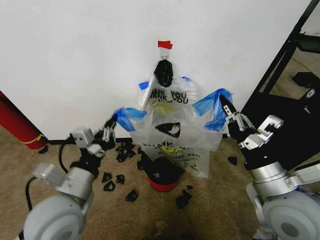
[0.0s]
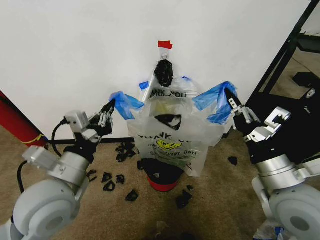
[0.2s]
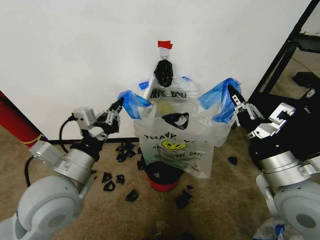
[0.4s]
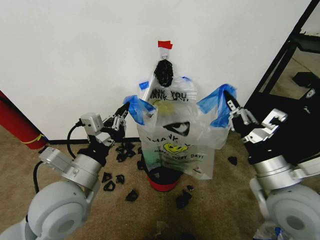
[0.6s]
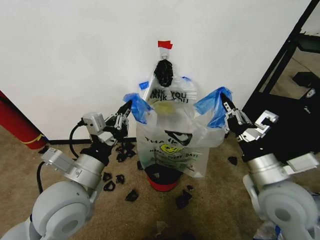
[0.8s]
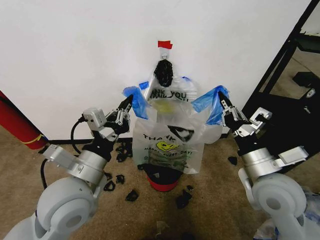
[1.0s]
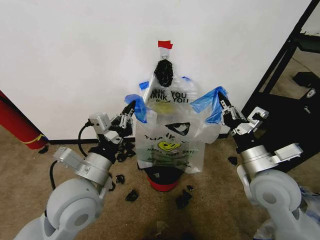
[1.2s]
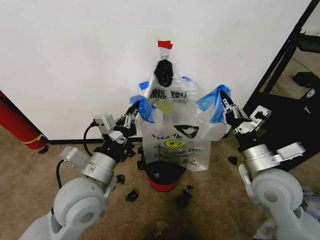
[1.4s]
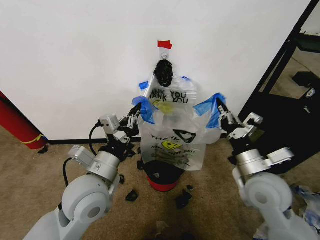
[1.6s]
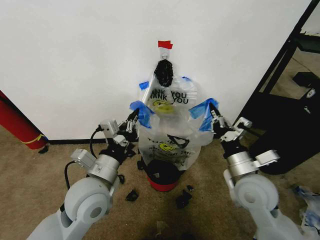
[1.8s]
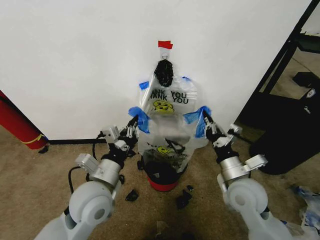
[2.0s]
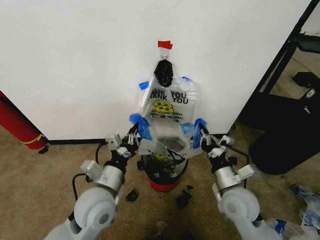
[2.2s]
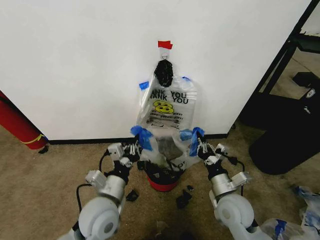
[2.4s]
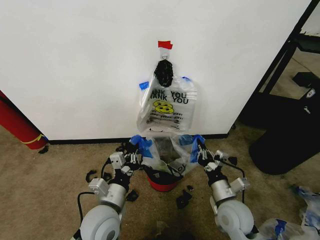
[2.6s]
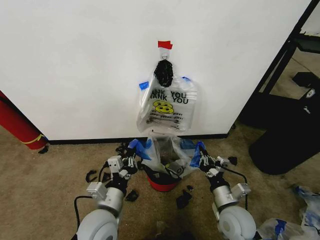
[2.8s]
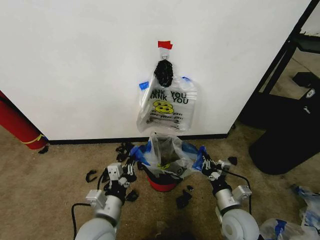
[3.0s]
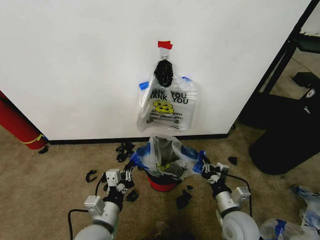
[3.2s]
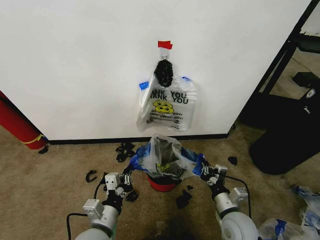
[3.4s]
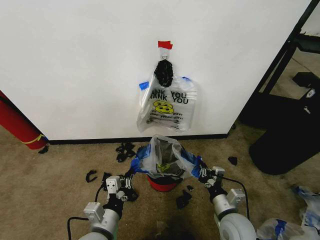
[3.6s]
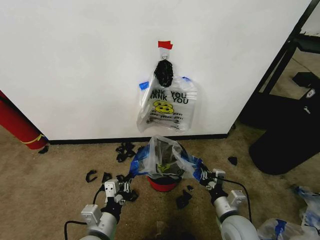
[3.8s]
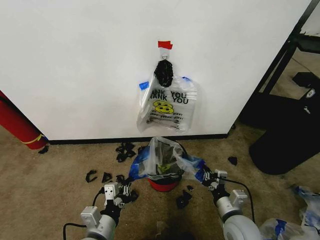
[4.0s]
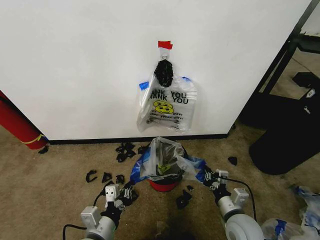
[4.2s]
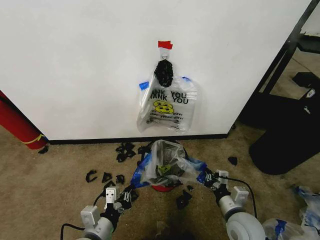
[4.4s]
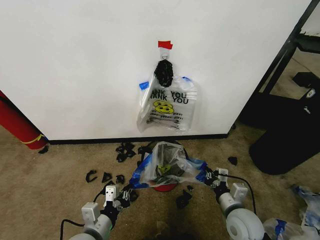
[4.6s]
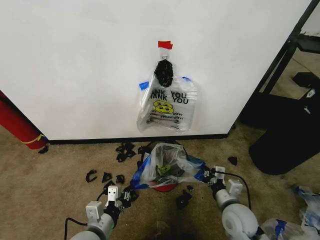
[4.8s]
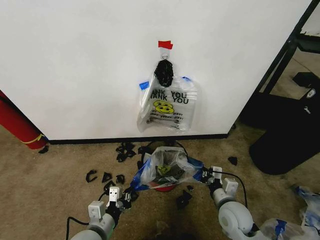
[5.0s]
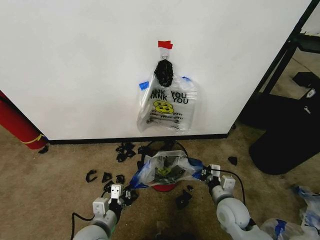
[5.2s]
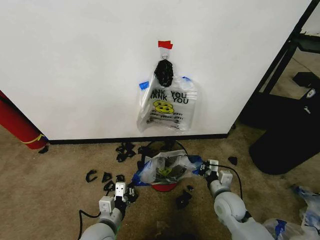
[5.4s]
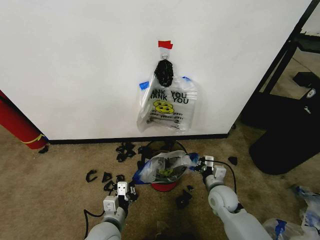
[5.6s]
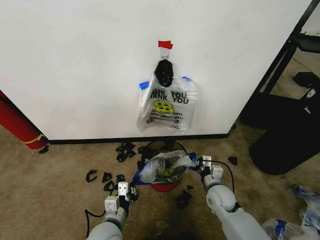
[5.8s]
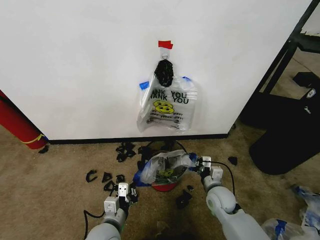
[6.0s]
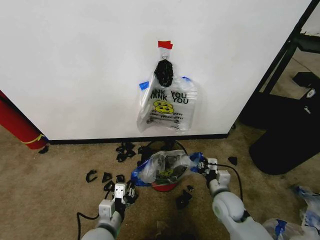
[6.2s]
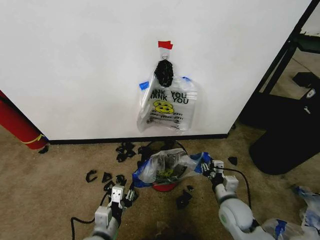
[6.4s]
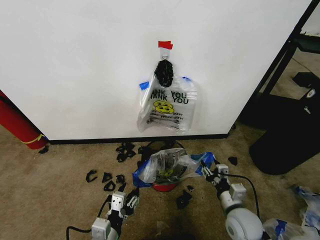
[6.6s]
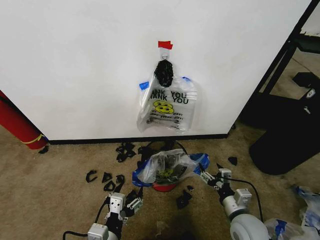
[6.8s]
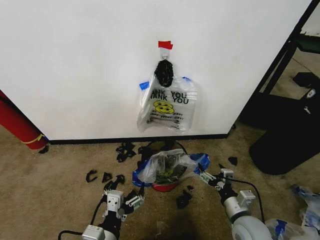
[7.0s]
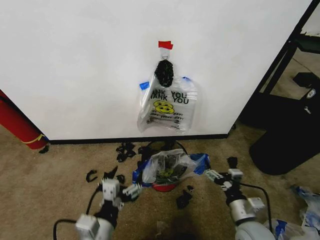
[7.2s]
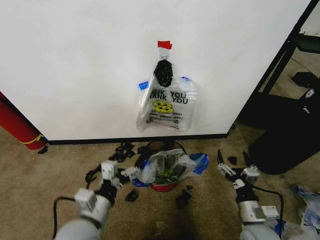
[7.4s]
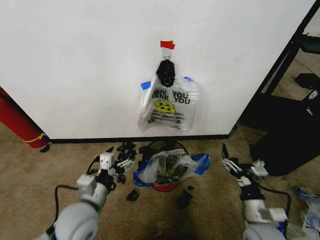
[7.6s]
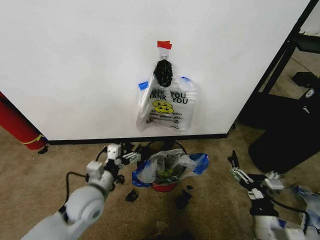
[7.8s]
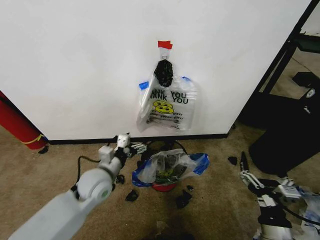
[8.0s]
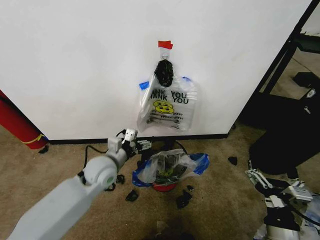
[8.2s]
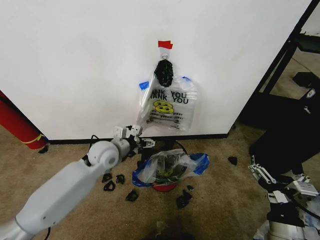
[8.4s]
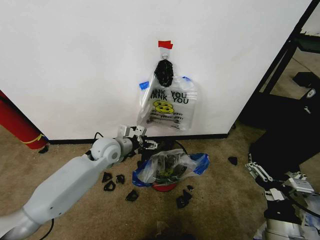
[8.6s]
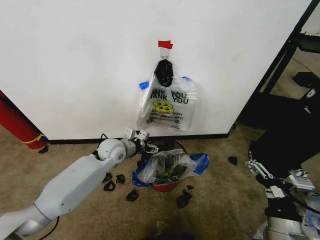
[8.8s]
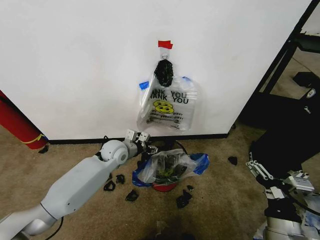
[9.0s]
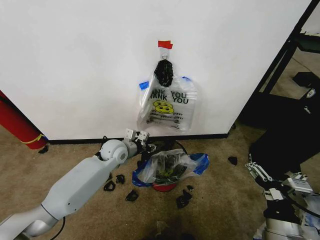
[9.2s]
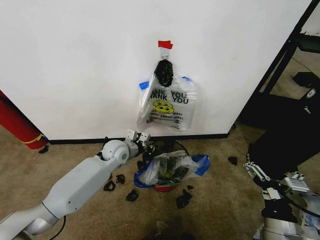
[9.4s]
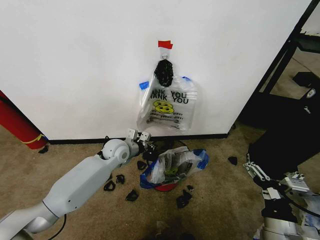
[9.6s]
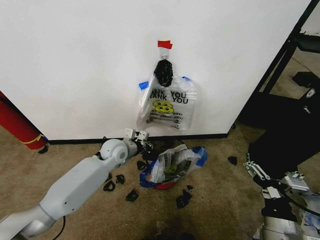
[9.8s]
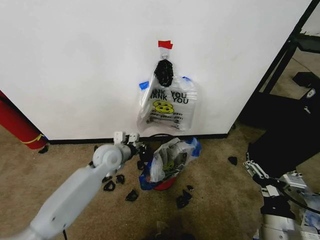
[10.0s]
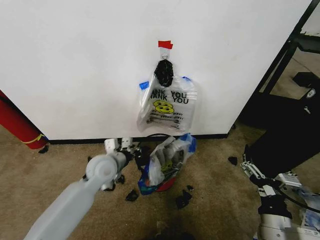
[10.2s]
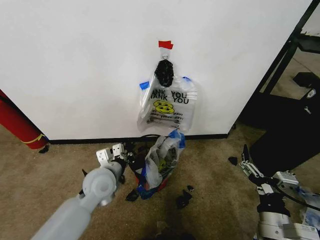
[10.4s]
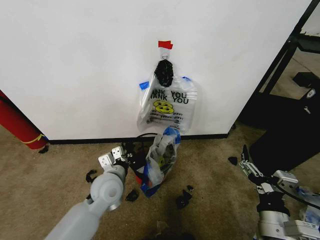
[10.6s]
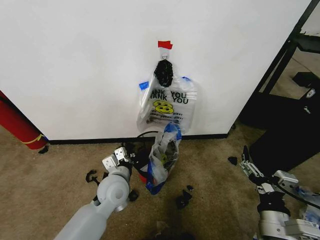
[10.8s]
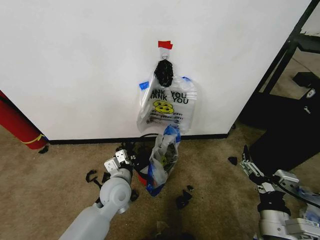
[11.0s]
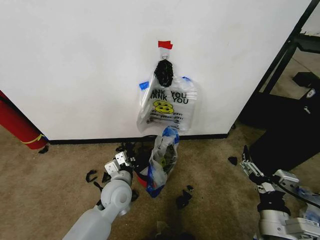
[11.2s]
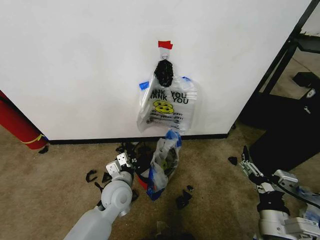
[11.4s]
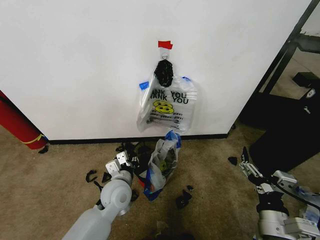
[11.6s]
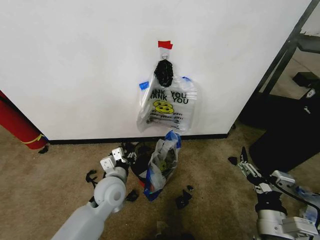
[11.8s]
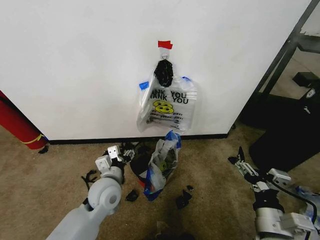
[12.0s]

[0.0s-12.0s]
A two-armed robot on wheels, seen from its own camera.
Task of the whole recording: Pick up the garbage bag from the wall and place it over the trash bin.
0.0s to 1.6s: The right gripper is displaced forward and downward by roughly 10 cm, while the left gripper changes place by roughly 5 cm.
1.6s to 3.0s: The right gripper shifts about 15 cm downward, while the left gripper heads downward and backward, covering approximately 15 cm.
3.0s to 4.4s: The left gripper ends up some 5 cm from where it was.
4.4s to 6.0s: The left gripper moves downward, approximately 5 cm. The right gripper travels forward by approximately 10 cm.
6.0s to 7.6s: The left gripper heads upward, covering roughly 10 cm, and opens. Meanwhile the right gripper heads backward, to the right and upward, covering approximately 15 cm, and opens up.
7.6s to 9.0s: The right gripper goes about 10 cm upward and backward. Meanwhile the left gripper moves forward, some 25 cm, and closes its fingers.
9.0s to 10.4s: The left gripper is displaced backward by about 15 cm, and closes.
10.4s to 12.0s: The left gripper opens its fingers.

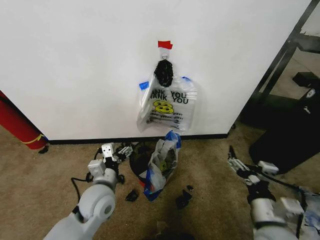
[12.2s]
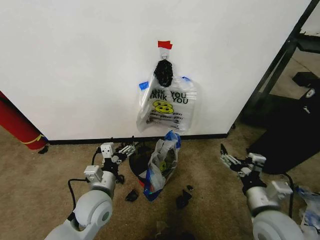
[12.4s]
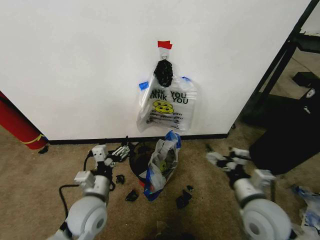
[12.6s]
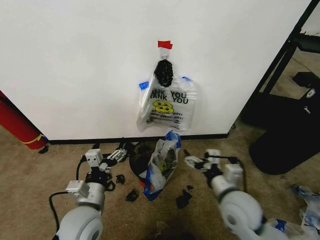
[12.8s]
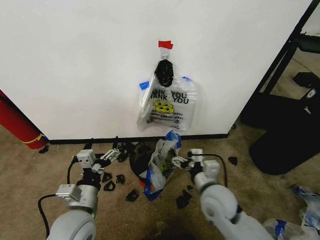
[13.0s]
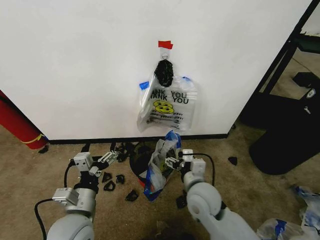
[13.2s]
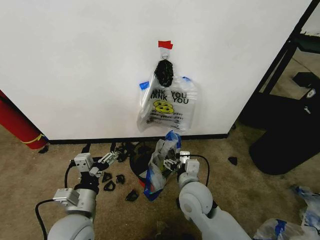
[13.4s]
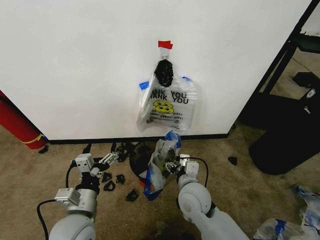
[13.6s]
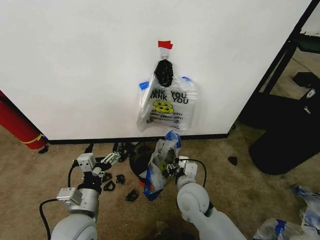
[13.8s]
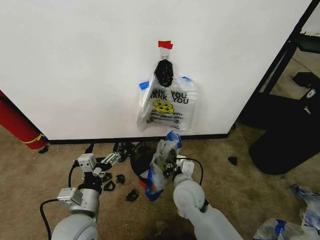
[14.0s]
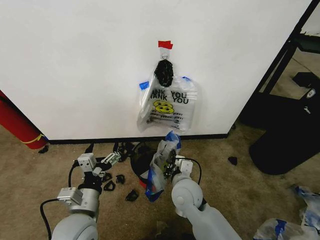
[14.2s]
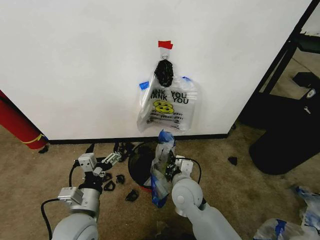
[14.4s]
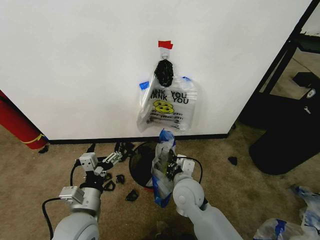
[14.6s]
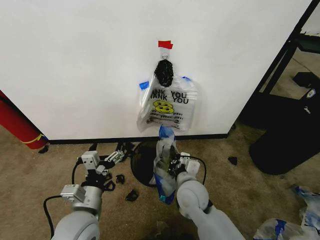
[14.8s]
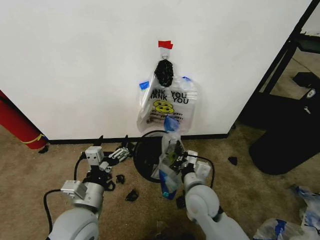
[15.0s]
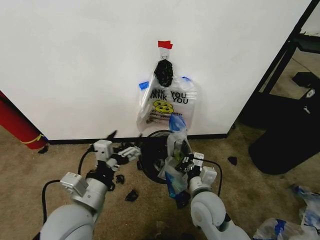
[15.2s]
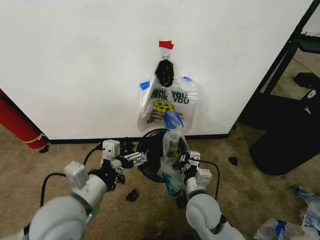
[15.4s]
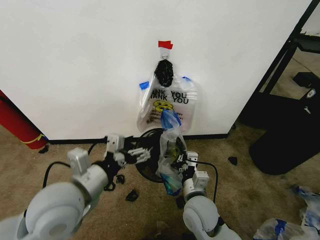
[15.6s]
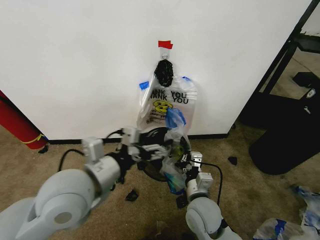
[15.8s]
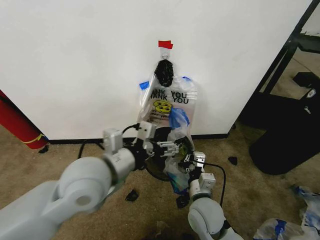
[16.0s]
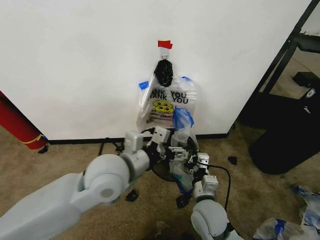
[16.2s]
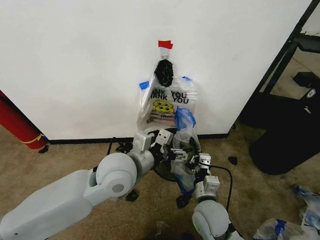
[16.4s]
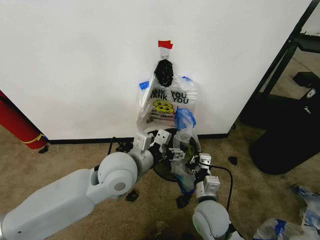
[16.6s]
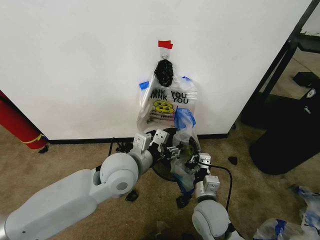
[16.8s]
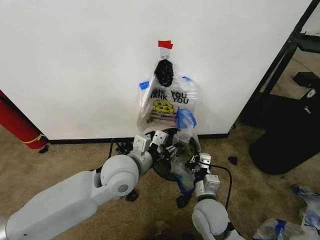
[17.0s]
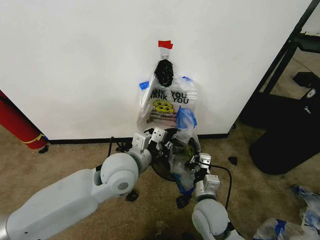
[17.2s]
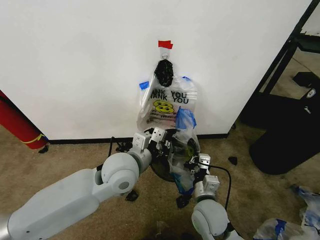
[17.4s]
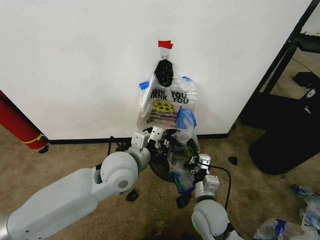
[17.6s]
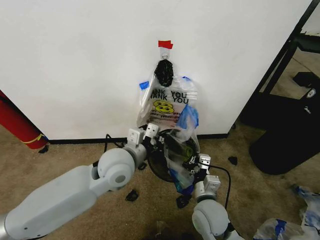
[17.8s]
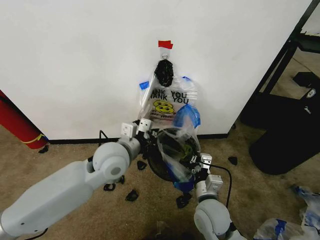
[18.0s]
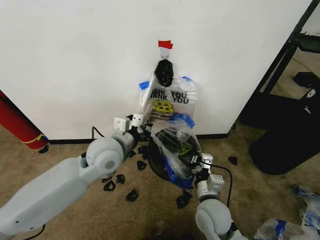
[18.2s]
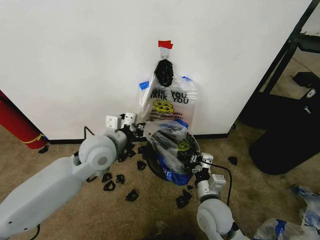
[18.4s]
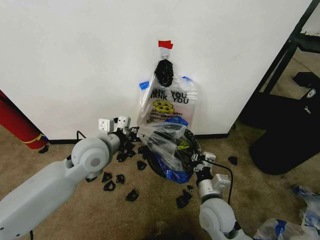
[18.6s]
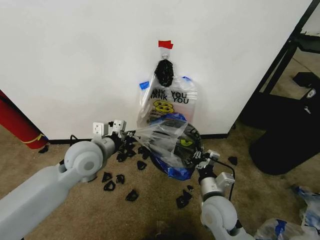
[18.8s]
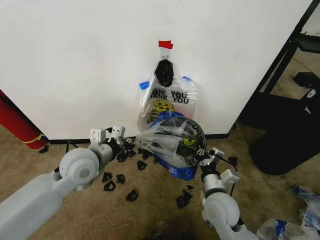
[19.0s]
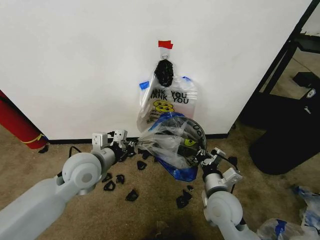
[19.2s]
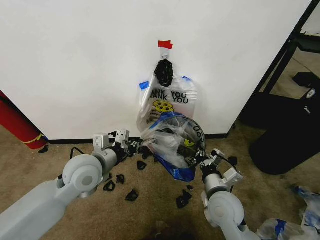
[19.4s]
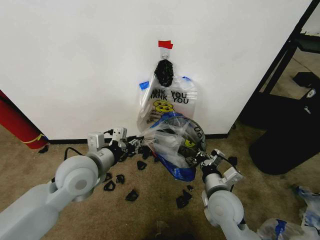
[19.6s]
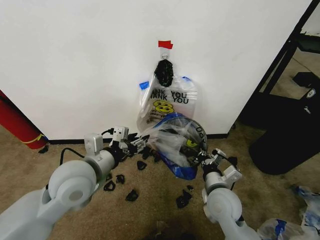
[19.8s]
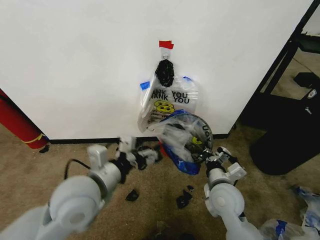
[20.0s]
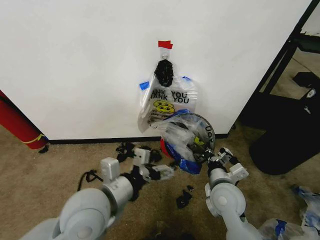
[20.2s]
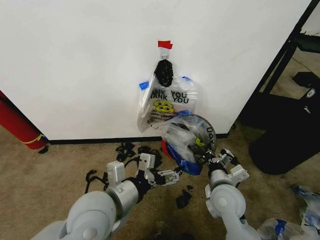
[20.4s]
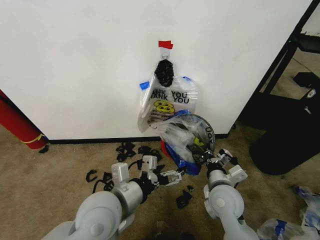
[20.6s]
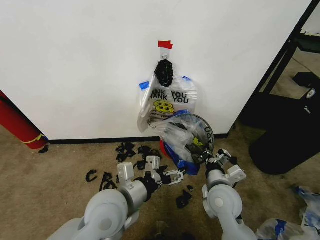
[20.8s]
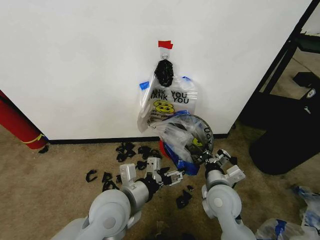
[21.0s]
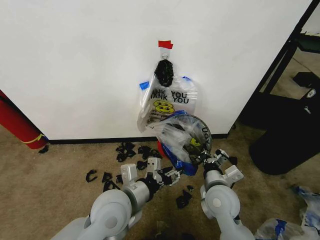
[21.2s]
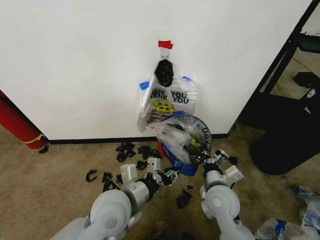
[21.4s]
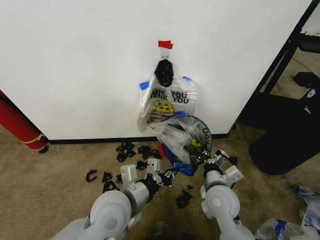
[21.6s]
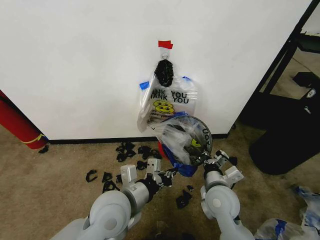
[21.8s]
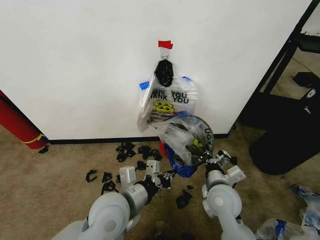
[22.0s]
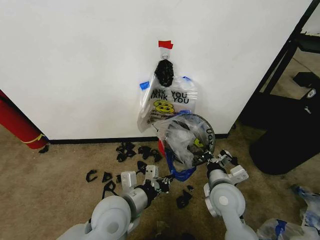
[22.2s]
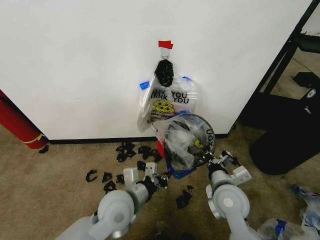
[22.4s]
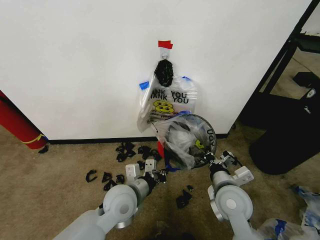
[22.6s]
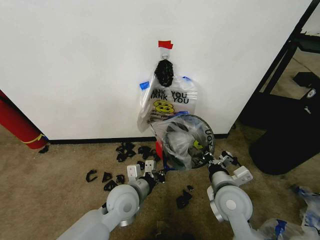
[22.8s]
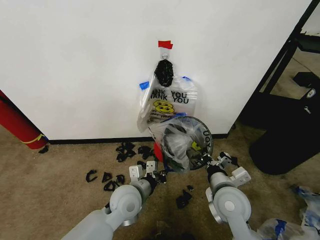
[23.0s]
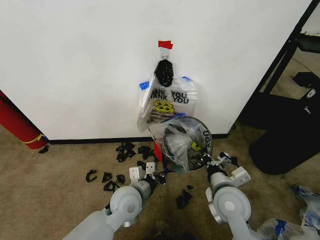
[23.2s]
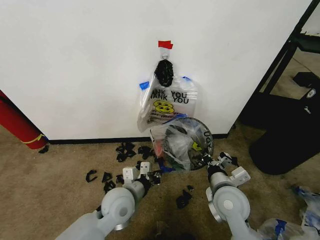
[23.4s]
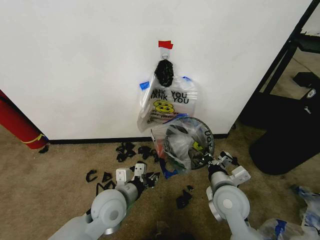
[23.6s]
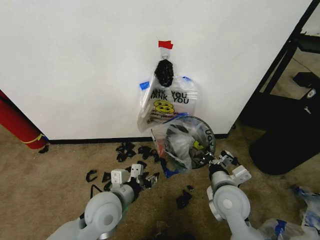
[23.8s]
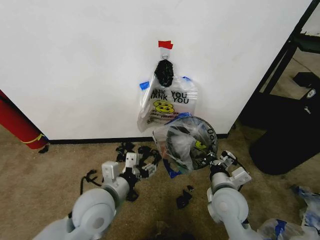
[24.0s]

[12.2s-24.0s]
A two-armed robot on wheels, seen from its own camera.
Task of the whole recording: Pick up the garbage bag from the wall and place it over the trash bin.
12.2s to 13.6s: The left gripper heads backward, covering approximately 10 cm; the right gripper shifts some 20 cm to the left and forward.
13.6s to 15.2s: The right gripper closes. The left gripper moves upward, about 5 cm.
15.2s to 16.6s: The left gripper goes approximately 15 cm forward and to the right.
16.6s to 18.2s: The left gripper shifts by some 5 cm, and closes.
18.2s to 19.6s: The left gripper shifts about 10 cm to the left and backward, and opens its fingers.
19.6s to 21.0s: The left gripper travels to the right and backward by roughly 10 cm, and opens up.
21.0s to 22.6s: The left gripper goes about 5 cm downward, and closes its fingers.
22.6s to 24.0s: The left gripper heads upward, covering approximately 5 cm, and opens up.
